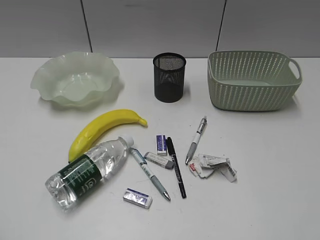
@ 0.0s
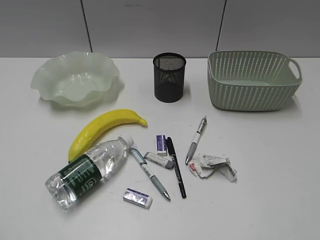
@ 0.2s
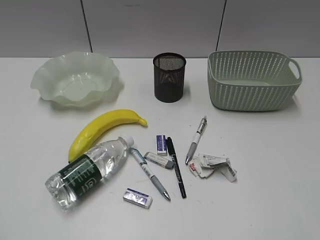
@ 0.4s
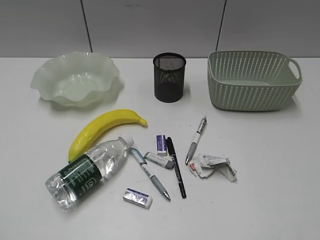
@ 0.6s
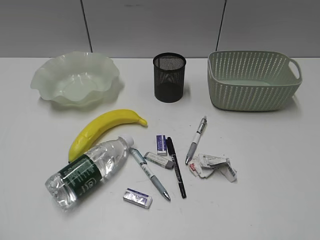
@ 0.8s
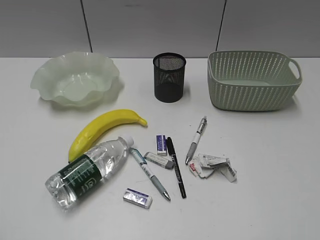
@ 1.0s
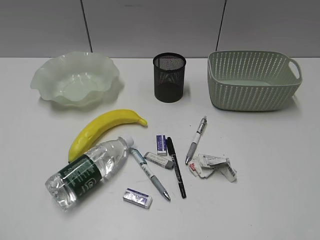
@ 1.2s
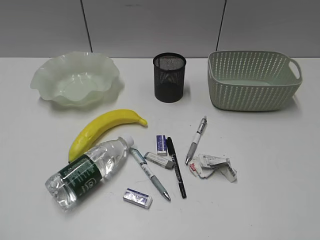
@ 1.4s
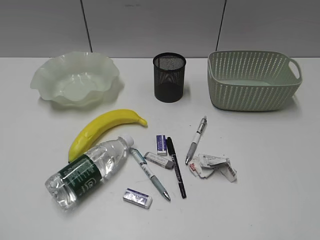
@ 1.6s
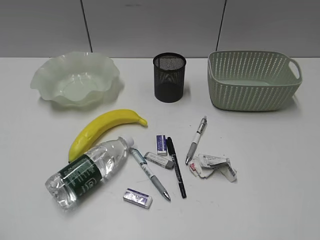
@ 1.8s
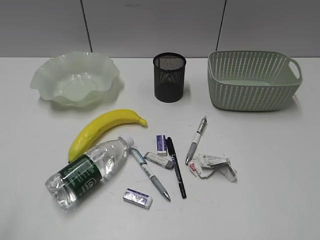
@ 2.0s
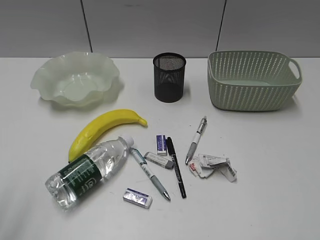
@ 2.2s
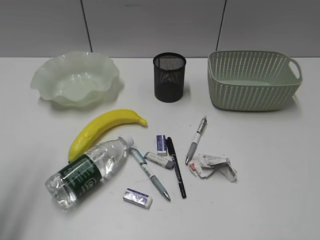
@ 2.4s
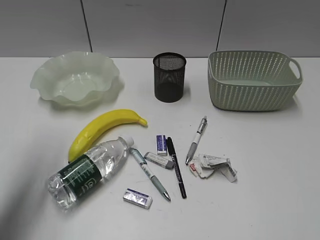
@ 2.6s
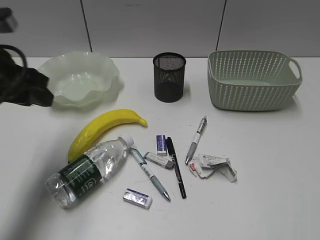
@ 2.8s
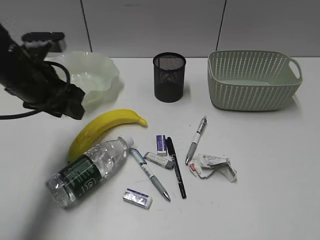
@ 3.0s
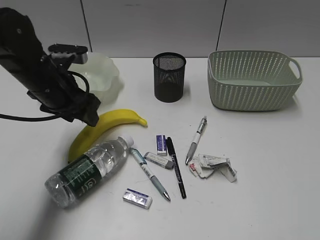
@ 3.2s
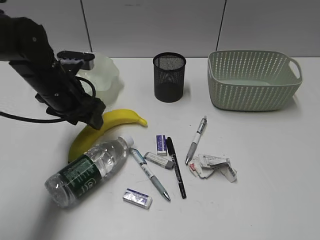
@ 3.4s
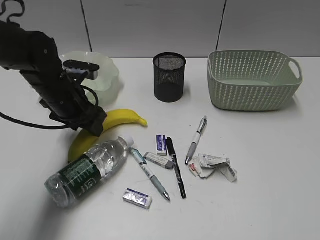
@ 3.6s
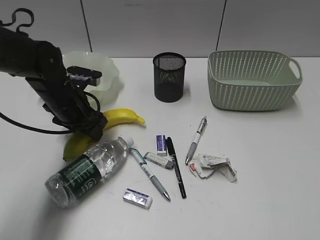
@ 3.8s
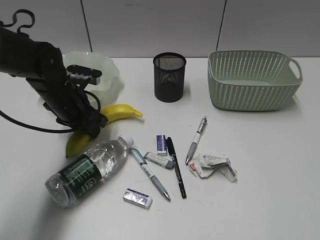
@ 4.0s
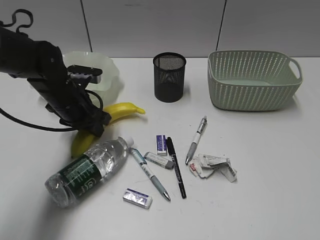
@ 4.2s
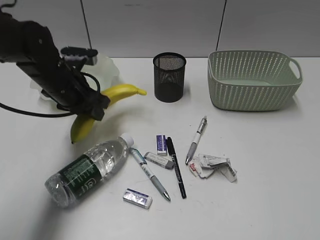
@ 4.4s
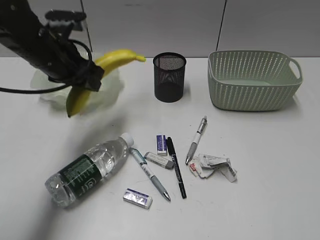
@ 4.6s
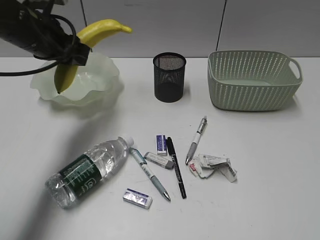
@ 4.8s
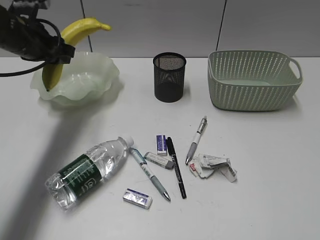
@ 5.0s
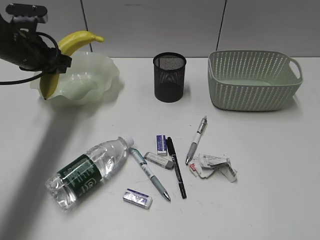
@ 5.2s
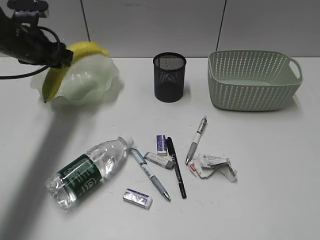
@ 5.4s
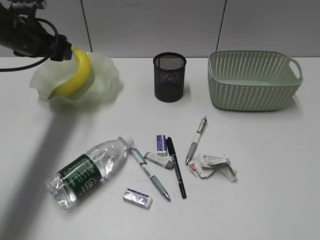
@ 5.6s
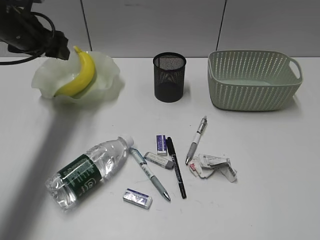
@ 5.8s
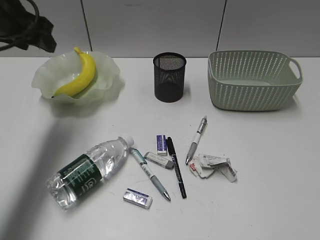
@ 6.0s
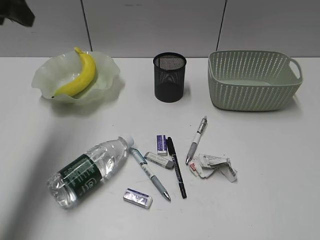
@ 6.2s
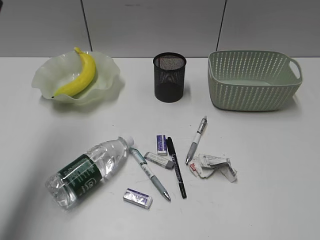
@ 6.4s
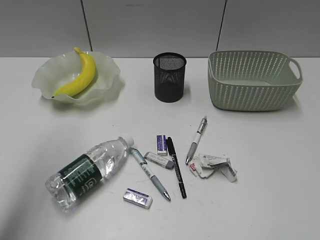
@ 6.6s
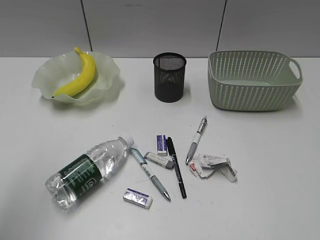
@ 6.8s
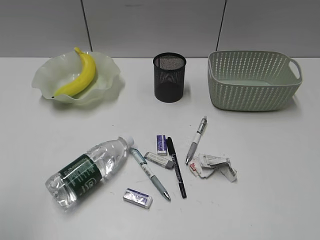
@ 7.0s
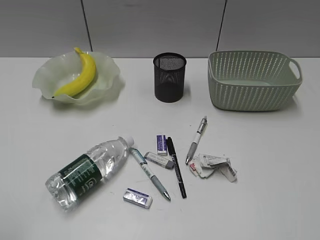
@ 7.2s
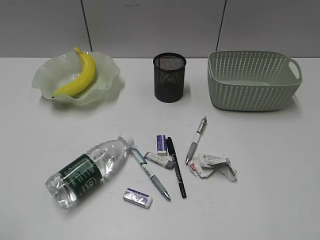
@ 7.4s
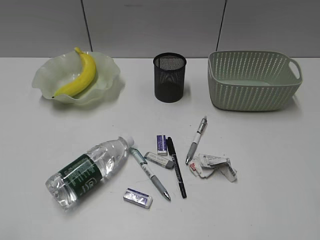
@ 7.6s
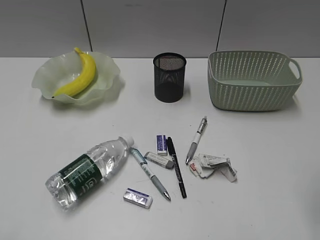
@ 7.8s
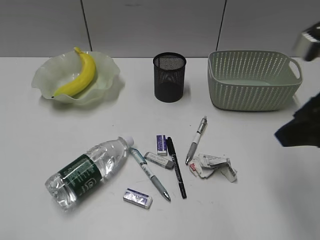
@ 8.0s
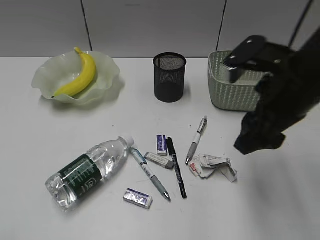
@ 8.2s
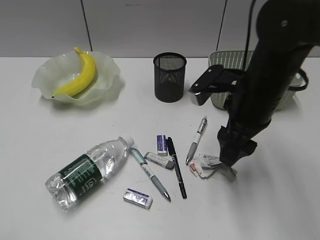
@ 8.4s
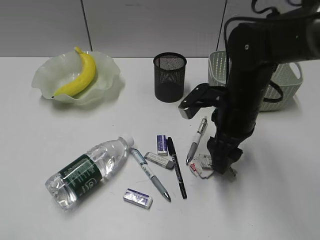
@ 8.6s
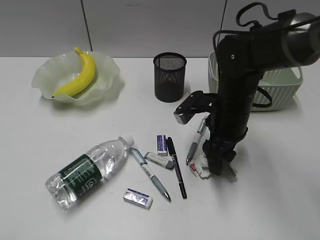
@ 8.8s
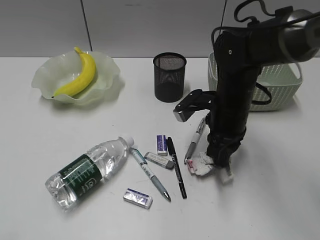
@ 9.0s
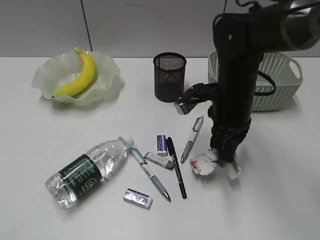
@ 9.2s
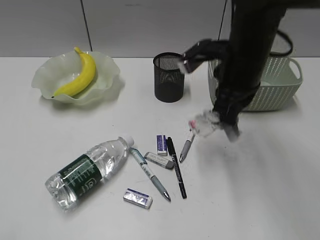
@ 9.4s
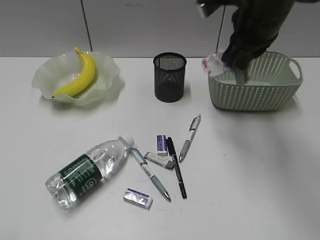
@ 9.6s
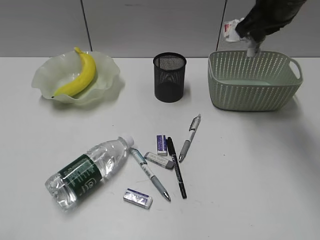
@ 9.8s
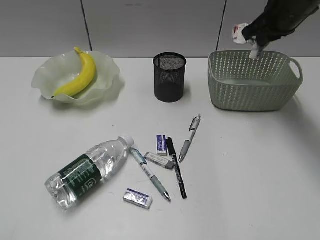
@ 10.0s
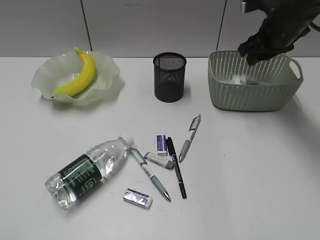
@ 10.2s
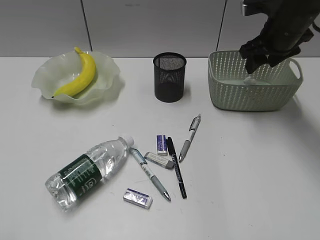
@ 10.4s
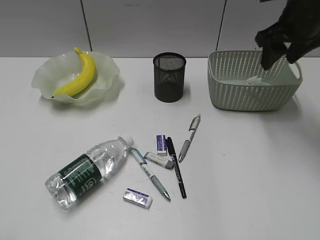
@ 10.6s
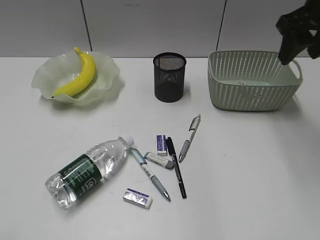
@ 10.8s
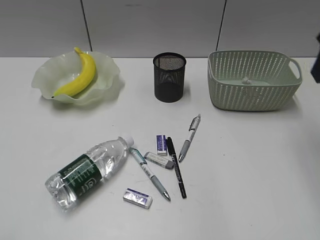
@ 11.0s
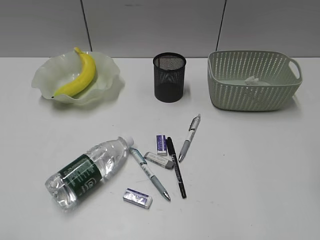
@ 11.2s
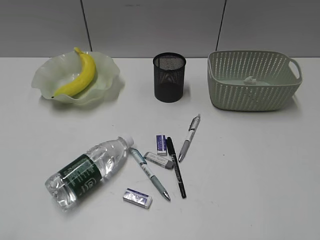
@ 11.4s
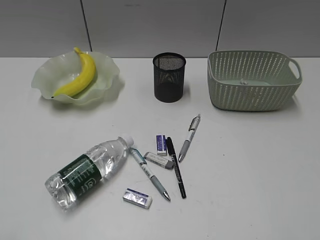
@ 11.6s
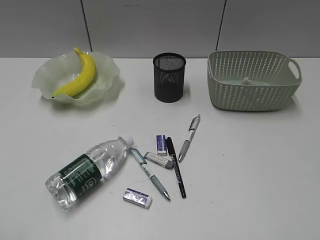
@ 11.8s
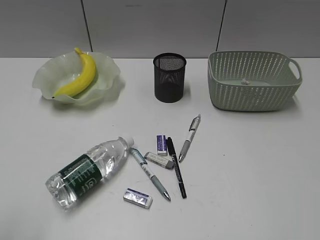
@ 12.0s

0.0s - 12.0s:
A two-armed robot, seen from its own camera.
Step, 1.8s - 4.0s: Grasp the banana with left gripper.
Step, 4.2s - 5.4s: Place the banana in the plate with left gripper.
Step, 5.6s - 9.0s: Grasp the waste paper with right gripper.
Step, 9.2s - 10.2s: Place the waste paper in the basket with right gripper.
1.6s - 3.0s: The left gripper travels forward by approximately 30 cm.
3.0s - 4.4s: The left gripper shifts approximately 10 cm downward and forward.
4.4s - 6.0s: The left gripper swings up and down, some 15 cm each way, with 2 reversals, and opens its fingers.
6.0s - 7.6s: The left gripper heads backward, covering some 40 cm.
7.6s - 9.0s: The right gripper shifts roughly 35 cm forward, downward and to the left, and closes its fingers.
9.0s - 10.4s: The right gripper moves forward, to the right and upward, approximately 20 cm, and opens up.
10.4s - 12.0s: The right gripper travels backward by about 40 cm.

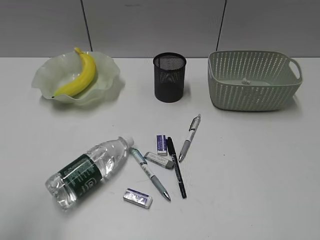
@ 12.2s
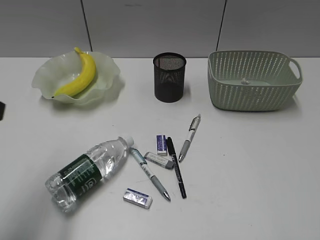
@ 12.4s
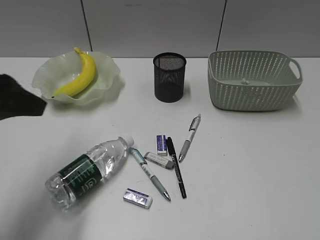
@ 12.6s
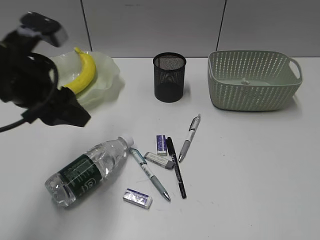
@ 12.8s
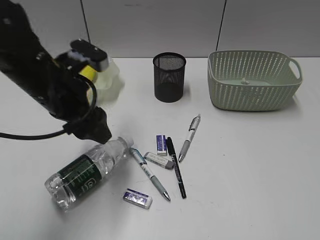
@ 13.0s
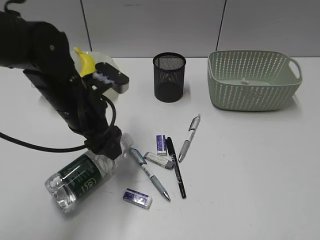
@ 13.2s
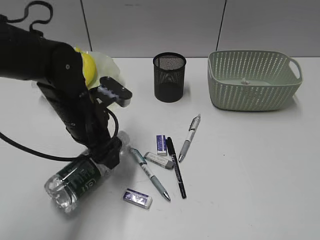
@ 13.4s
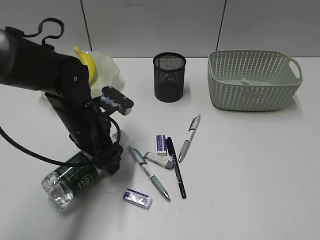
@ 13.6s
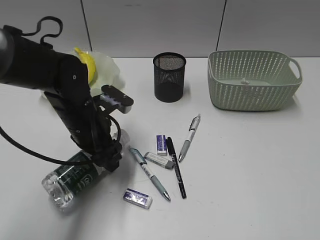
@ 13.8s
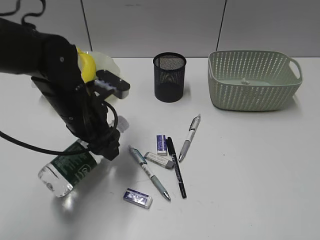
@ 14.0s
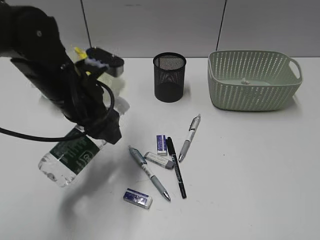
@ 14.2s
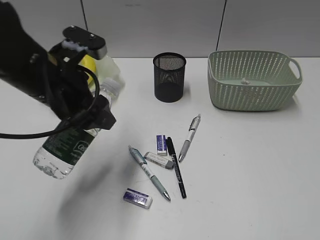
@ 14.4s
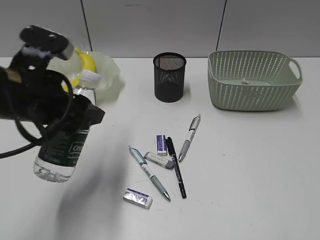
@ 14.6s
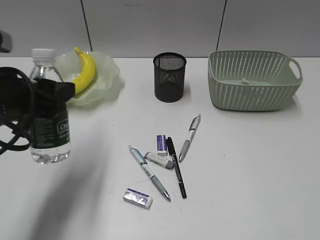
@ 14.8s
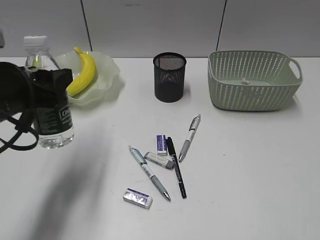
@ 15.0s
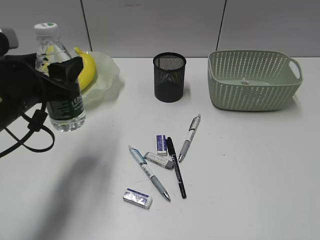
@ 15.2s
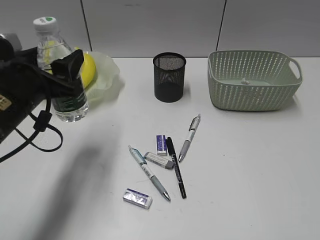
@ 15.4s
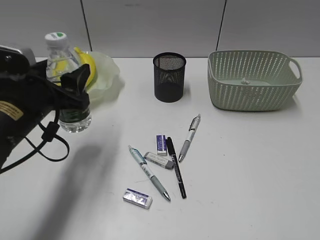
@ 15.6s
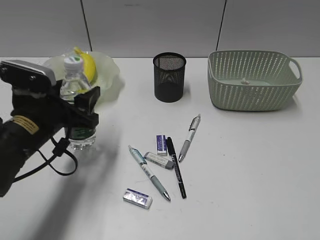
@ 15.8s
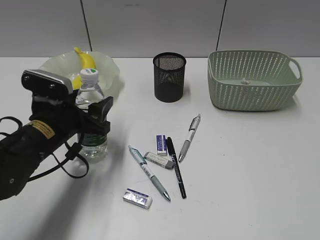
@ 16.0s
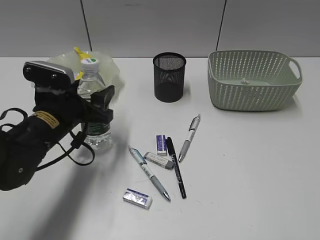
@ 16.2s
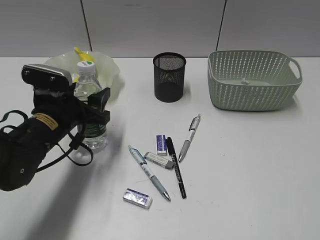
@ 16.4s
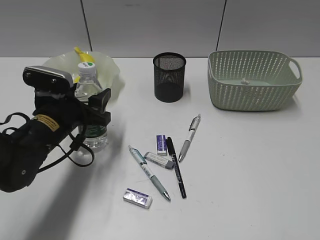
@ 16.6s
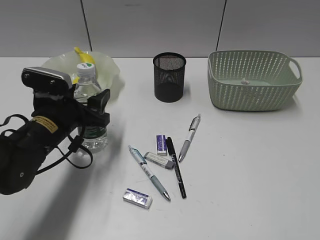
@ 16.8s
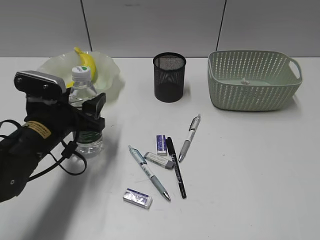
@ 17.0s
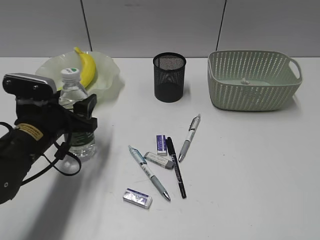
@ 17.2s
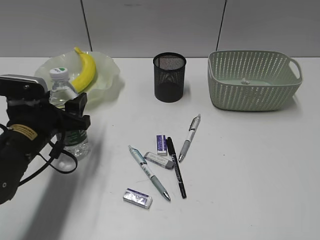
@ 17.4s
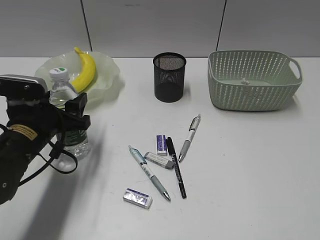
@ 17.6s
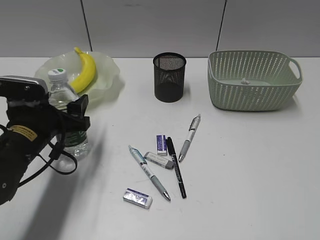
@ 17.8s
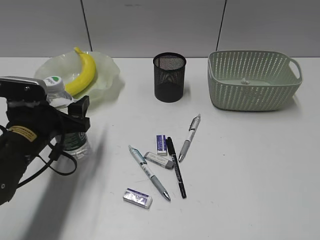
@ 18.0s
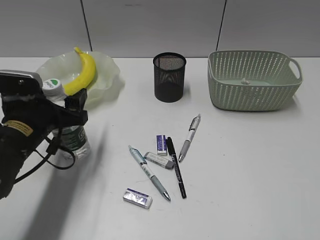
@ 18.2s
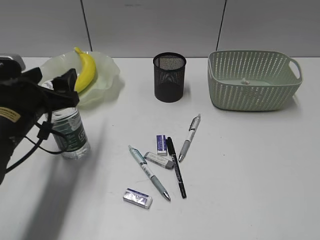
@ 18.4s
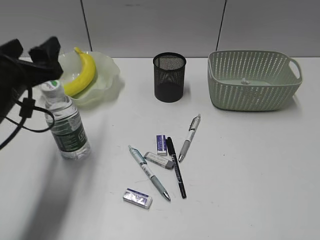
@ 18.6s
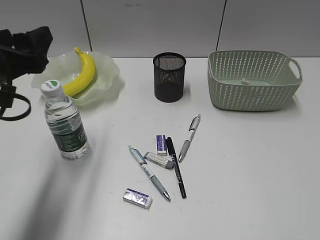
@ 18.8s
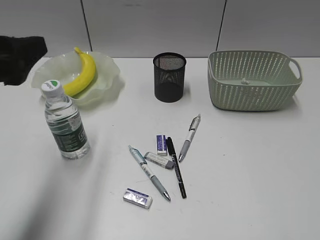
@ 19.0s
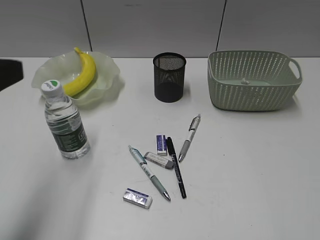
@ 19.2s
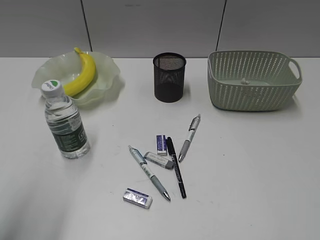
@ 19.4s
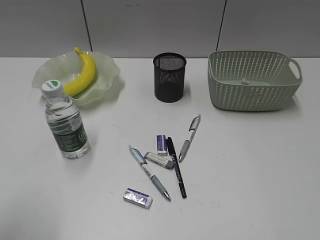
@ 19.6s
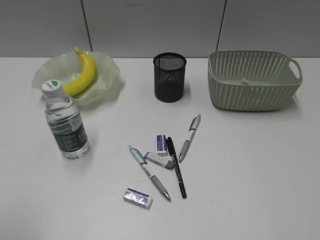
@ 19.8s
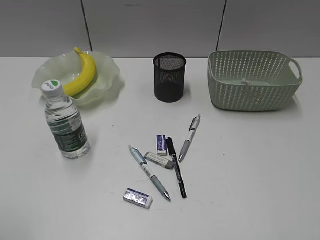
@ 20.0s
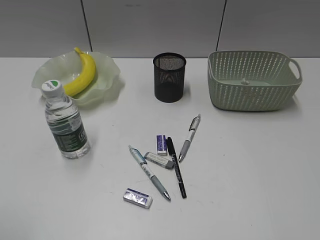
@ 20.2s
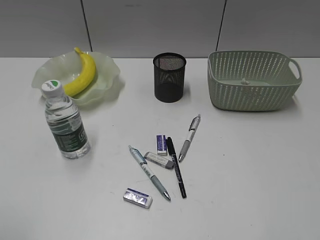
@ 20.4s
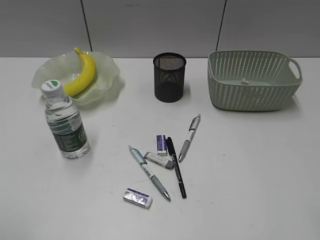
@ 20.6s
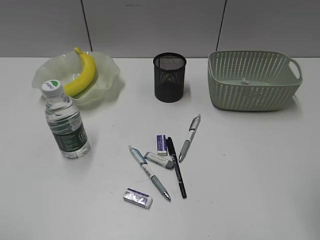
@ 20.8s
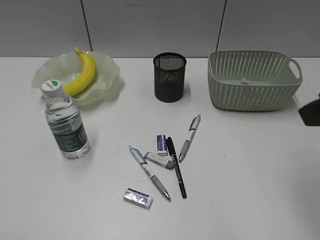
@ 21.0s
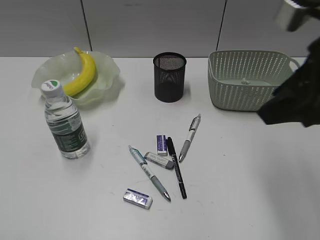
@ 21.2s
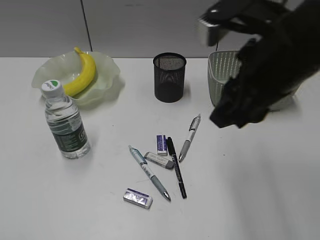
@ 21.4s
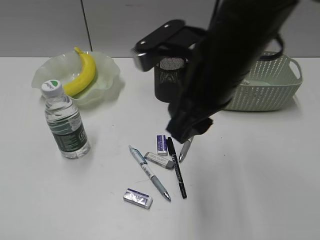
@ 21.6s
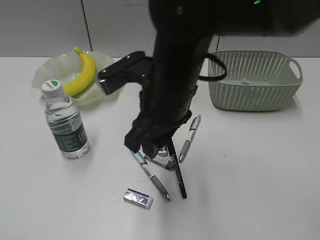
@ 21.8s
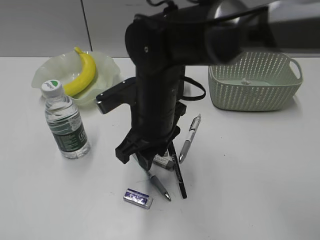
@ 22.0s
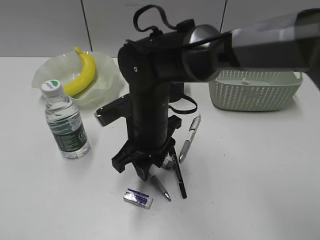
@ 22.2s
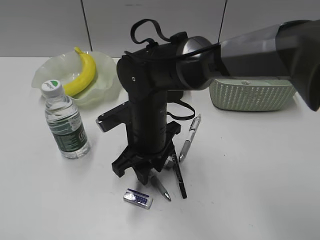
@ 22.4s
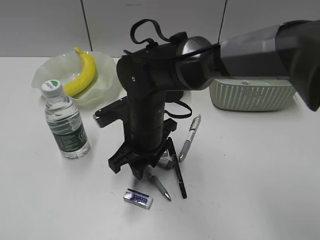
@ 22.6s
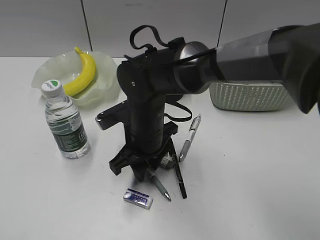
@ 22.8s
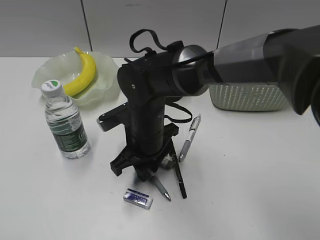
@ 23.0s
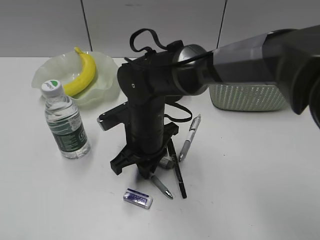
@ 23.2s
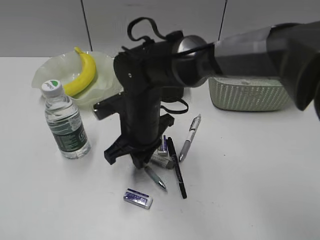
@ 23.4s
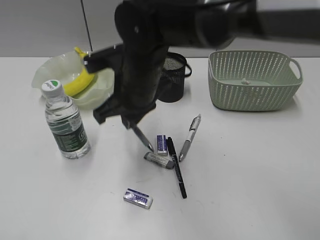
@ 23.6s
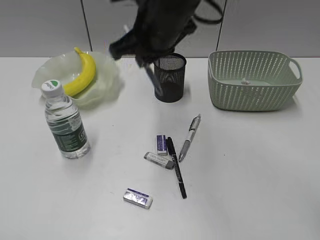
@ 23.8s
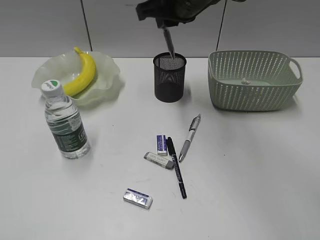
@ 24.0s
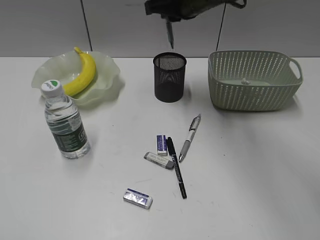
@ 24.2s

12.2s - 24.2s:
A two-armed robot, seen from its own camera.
Step, 13.8s - 18.4s: Stand the bottle with left gripper.
Step, 18.6s - 23.2s: Grasp the blue pen with right gripper.
12.2s - 13.8s: The left gripper travels forward, downward and to the right by approximately 35 cm.
13.8s - 15.2s: The left gripper travels upward, to the left and backward by roughly 15 cm.
15.2s - 16.6s: The left gripper goes roughly 10 cm downward.
16.6s - 18.2s: The grippers stay close to where they were, moving slightly.
18.2s - 19.8s: The left gripper shifts roughly 30 cm backward, upward and to the left.
19.8s - 21.2s: The right gripper heads forward and to the left, covering about 25 cm.
21.2s - 22.6s: The right gripper travels to the left and downward by approximately 30 cm.
22.6s - 24.2s: The right gripper moves upward, forward and to the right, approximately 20 cm, and closes up.
